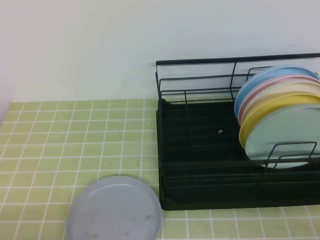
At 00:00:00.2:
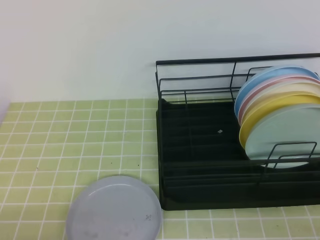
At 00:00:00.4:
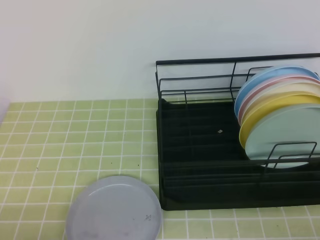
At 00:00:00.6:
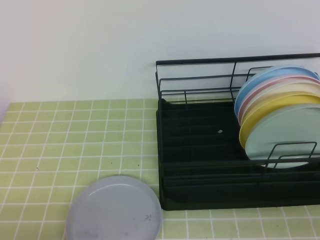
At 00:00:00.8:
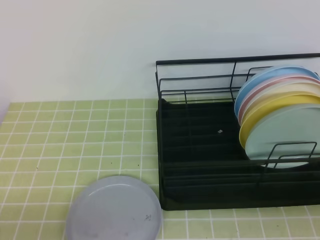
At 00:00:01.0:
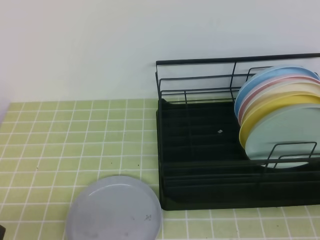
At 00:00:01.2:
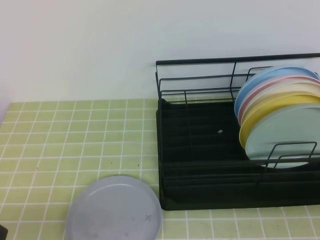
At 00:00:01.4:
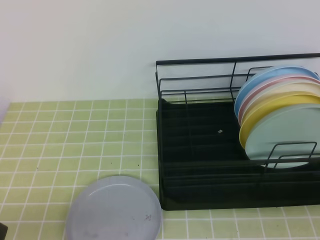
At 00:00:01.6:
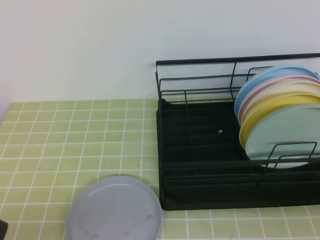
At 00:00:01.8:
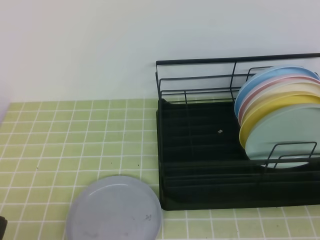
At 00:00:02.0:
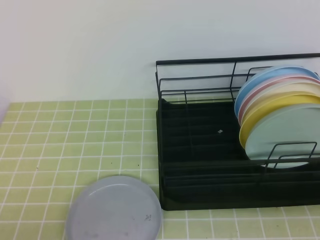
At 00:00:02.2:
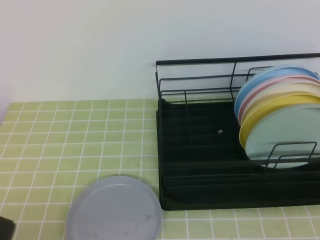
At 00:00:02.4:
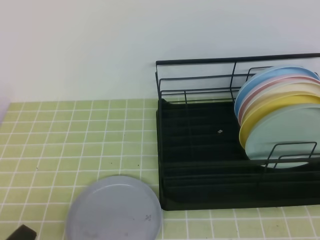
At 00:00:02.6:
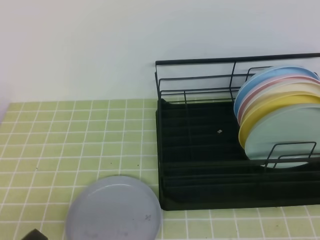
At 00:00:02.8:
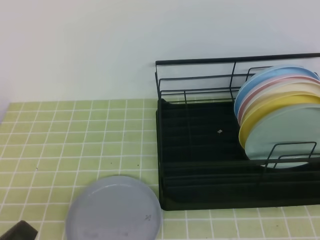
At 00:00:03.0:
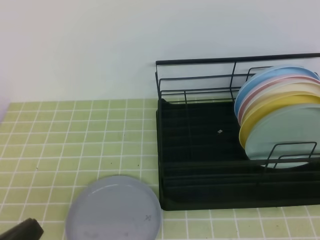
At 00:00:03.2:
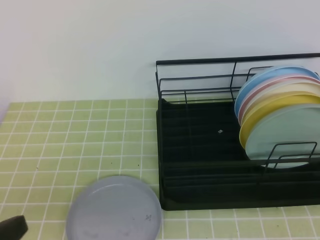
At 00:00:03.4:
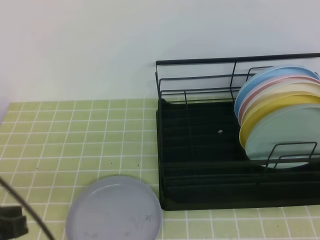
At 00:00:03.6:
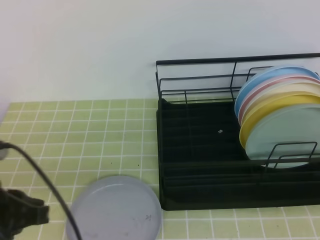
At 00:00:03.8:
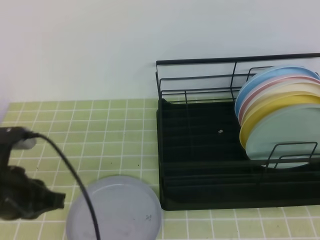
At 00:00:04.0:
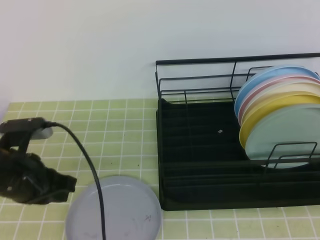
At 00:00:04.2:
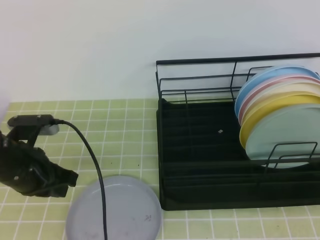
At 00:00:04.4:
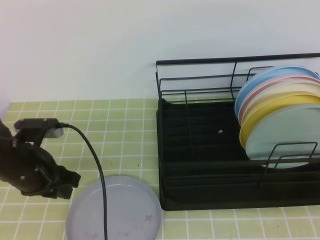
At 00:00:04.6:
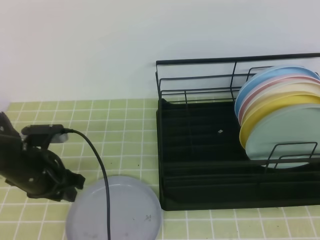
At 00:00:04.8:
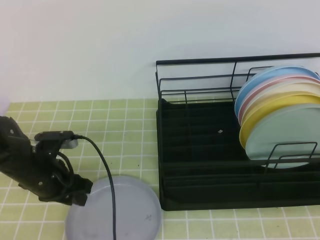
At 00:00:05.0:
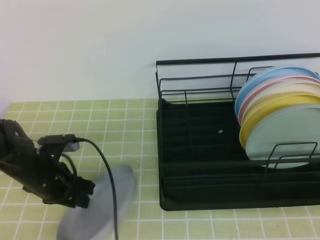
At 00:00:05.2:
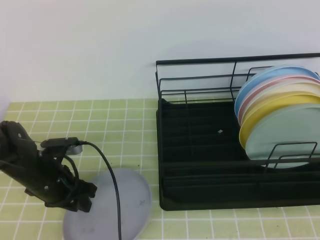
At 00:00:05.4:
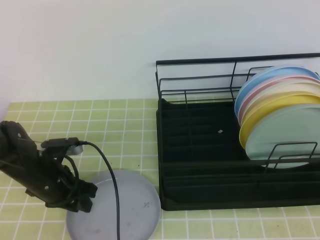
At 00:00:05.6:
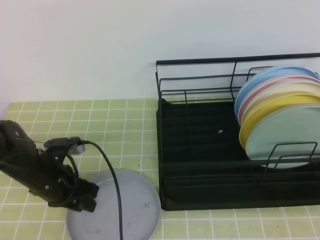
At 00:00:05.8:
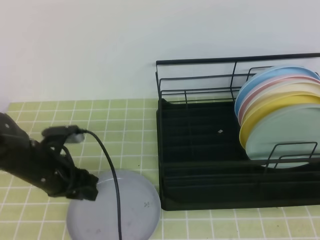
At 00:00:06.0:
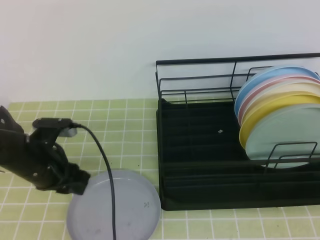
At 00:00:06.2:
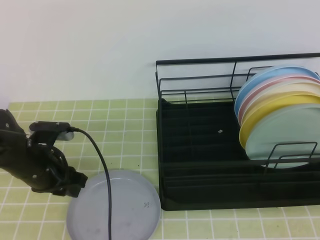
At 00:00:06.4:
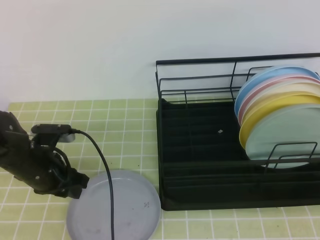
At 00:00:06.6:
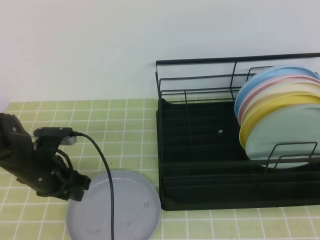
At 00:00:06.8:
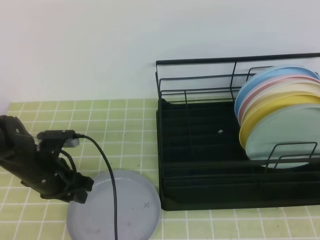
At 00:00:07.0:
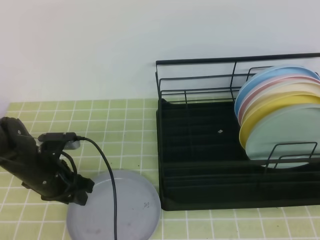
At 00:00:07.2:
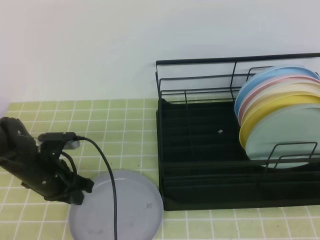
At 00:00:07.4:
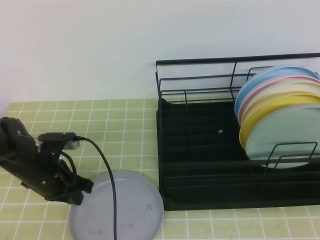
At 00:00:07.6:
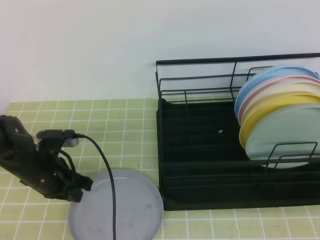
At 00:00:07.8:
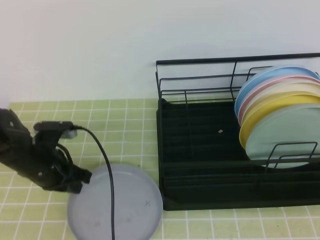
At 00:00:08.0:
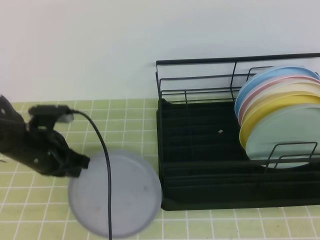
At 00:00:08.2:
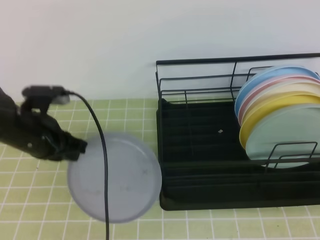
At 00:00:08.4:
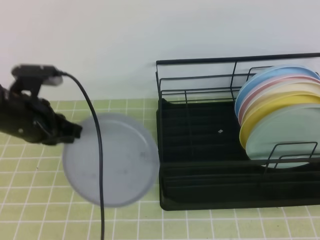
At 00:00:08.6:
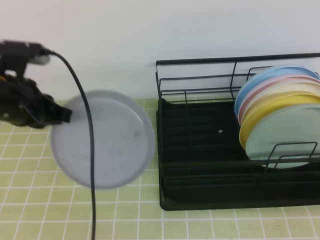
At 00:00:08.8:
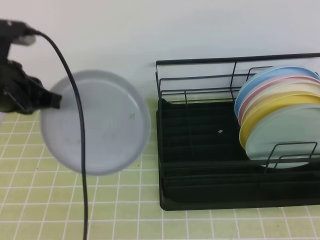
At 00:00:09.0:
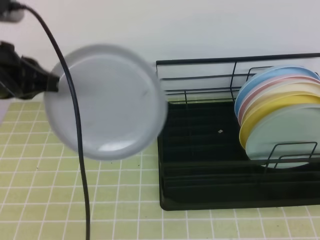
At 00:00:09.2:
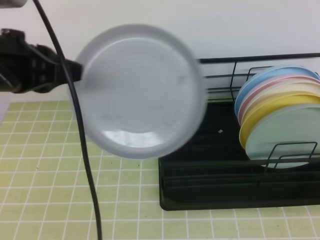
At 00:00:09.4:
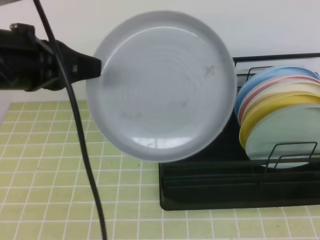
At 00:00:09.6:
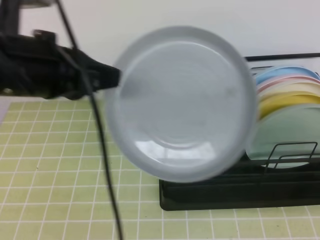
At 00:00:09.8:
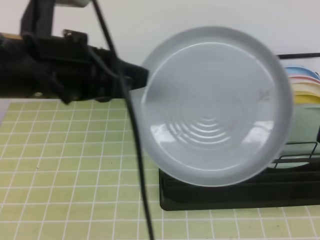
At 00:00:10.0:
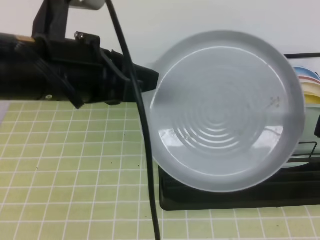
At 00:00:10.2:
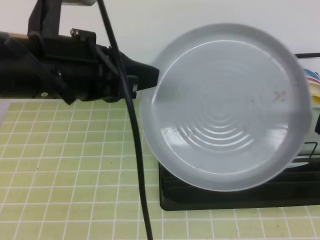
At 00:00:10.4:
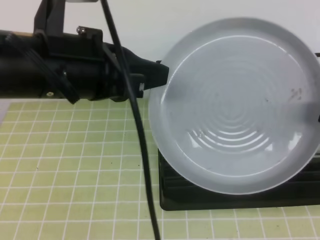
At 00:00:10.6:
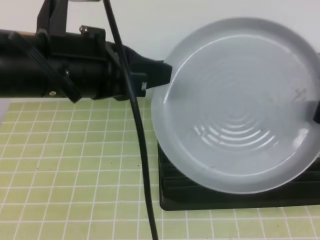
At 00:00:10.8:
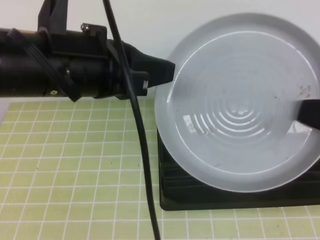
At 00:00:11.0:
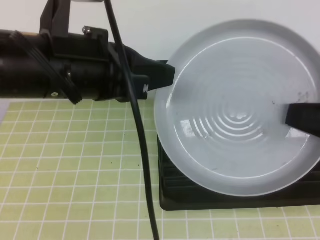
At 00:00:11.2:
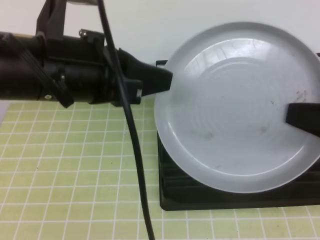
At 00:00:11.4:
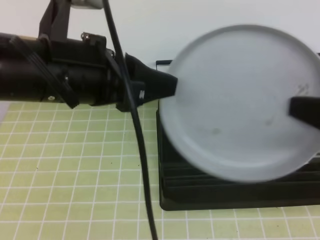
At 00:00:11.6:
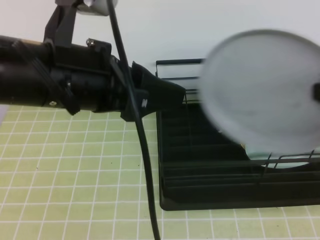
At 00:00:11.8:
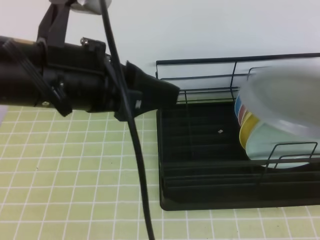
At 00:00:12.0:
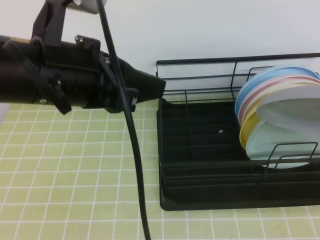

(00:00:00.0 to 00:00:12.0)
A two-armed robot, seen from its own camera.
00:00:01.6 - 00:00:03.0: The left gripper goes some 5 cm upward.
00:00:03.0 - 00:00:04.4: The left gripper is displaced forward by some 25 cm, and opens.
00:00:06.0 - 00:00:07.6: The left gripper closes up.
00:00:07.6 - 00:00:09.0: The left gripper goes about 20 cm upward.
00:00:09.0 - 00:00:10.4: The right gripper opens its fingers. Meanwhile the left gripper heads to the right, covering about 10 cm.
00:00:10.4 - 00:00:12.0: The left gripper opens up. Meanwhile the right gripper travels forward by about 5 cm, and closes up.

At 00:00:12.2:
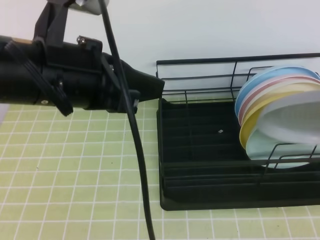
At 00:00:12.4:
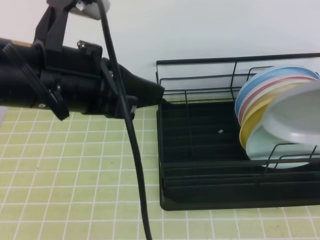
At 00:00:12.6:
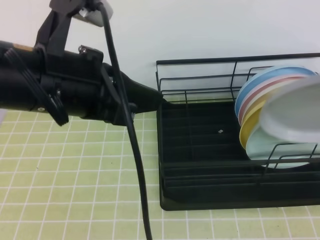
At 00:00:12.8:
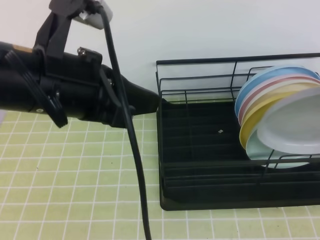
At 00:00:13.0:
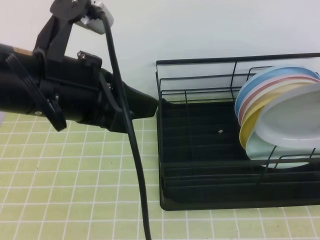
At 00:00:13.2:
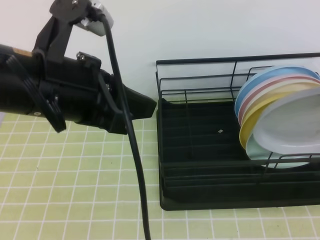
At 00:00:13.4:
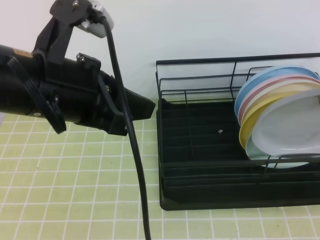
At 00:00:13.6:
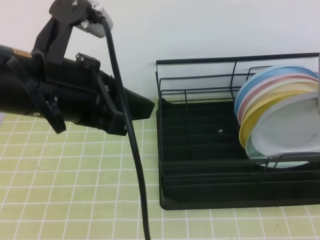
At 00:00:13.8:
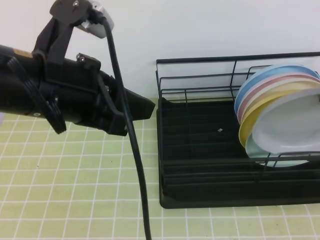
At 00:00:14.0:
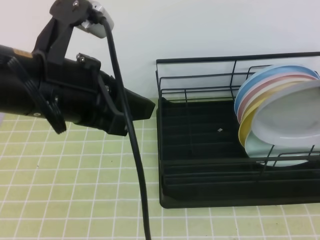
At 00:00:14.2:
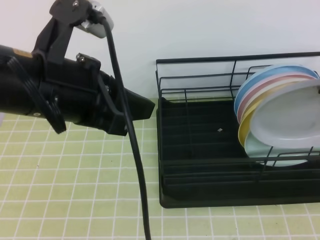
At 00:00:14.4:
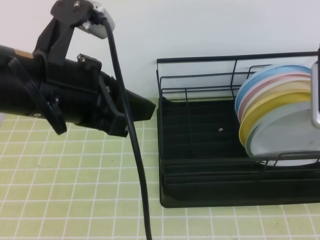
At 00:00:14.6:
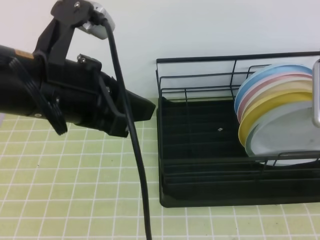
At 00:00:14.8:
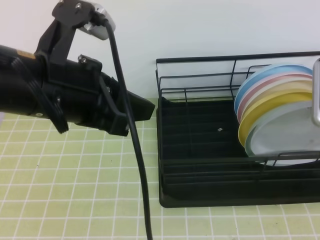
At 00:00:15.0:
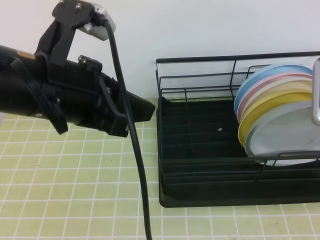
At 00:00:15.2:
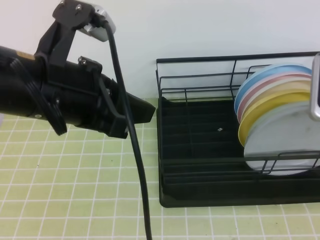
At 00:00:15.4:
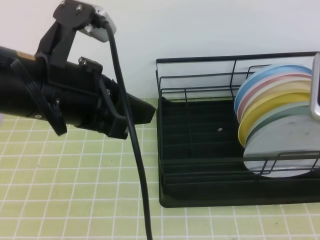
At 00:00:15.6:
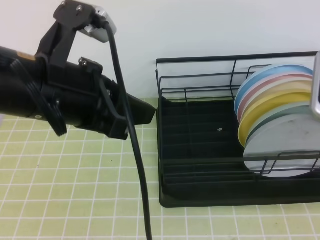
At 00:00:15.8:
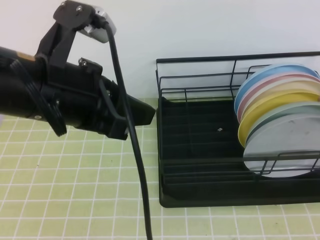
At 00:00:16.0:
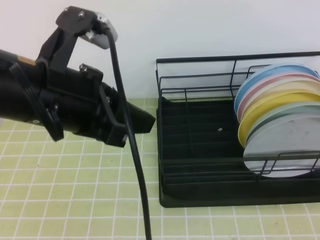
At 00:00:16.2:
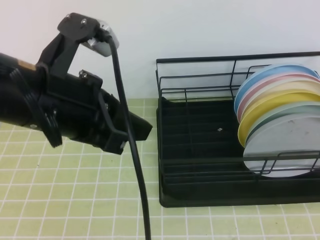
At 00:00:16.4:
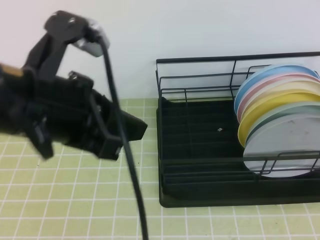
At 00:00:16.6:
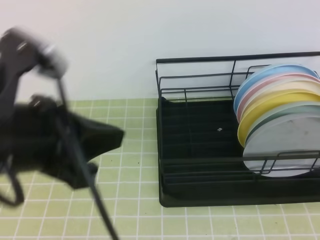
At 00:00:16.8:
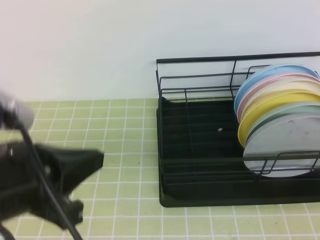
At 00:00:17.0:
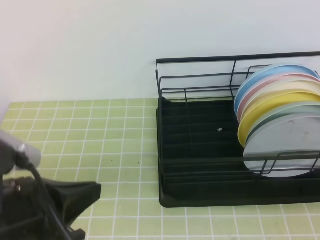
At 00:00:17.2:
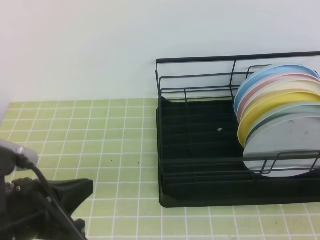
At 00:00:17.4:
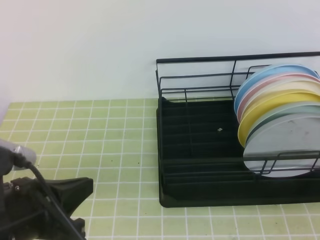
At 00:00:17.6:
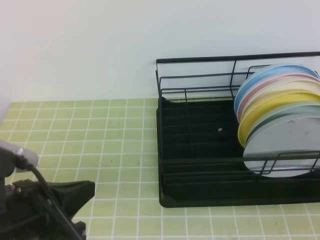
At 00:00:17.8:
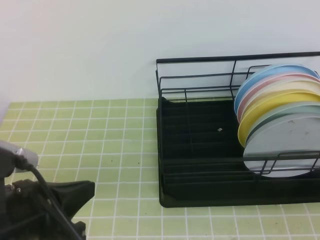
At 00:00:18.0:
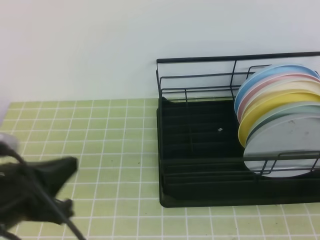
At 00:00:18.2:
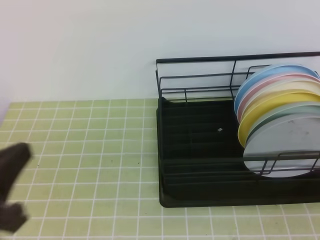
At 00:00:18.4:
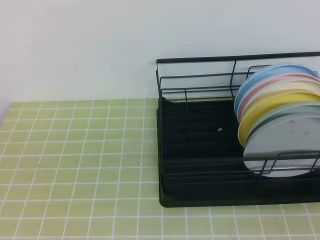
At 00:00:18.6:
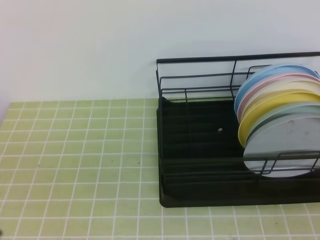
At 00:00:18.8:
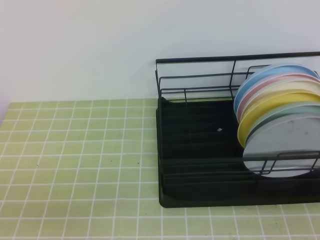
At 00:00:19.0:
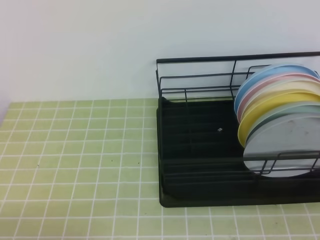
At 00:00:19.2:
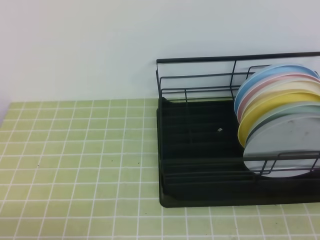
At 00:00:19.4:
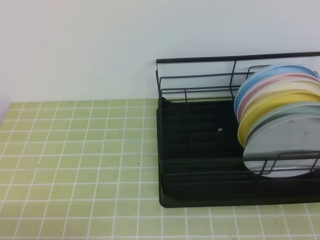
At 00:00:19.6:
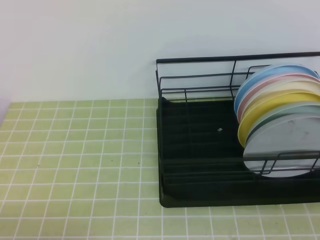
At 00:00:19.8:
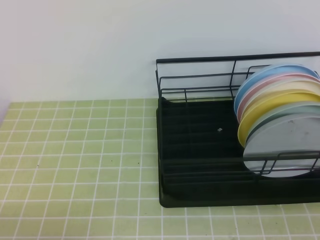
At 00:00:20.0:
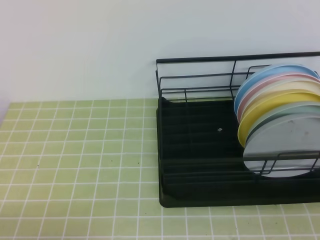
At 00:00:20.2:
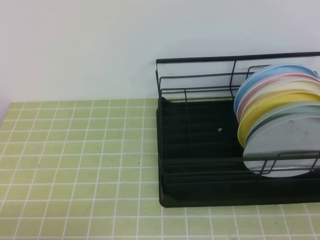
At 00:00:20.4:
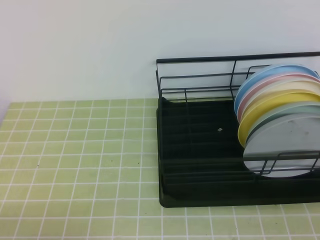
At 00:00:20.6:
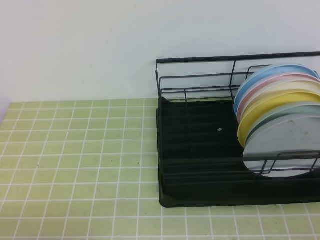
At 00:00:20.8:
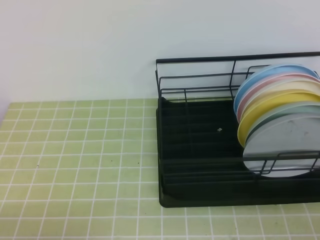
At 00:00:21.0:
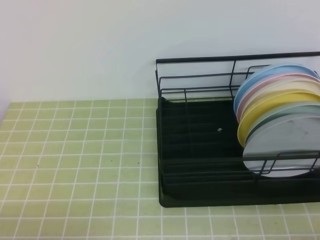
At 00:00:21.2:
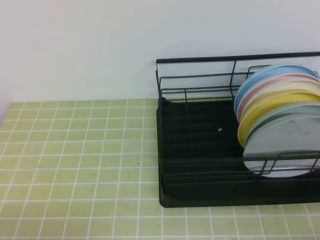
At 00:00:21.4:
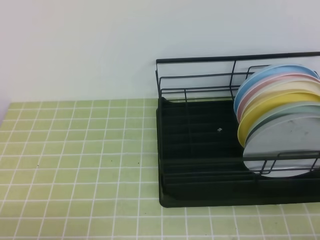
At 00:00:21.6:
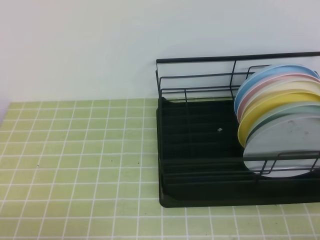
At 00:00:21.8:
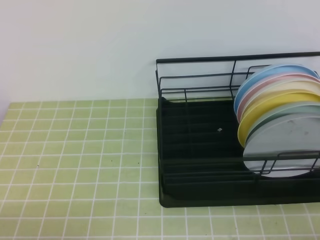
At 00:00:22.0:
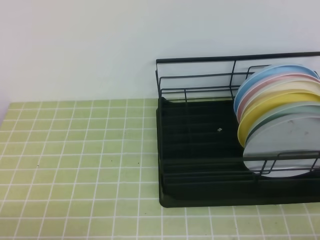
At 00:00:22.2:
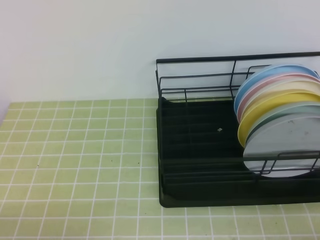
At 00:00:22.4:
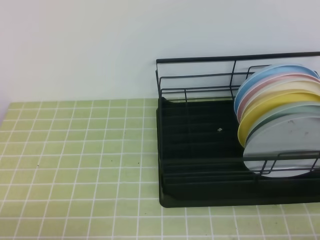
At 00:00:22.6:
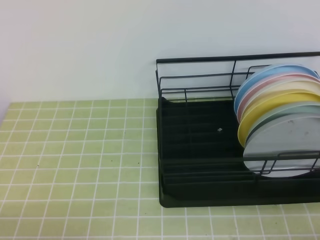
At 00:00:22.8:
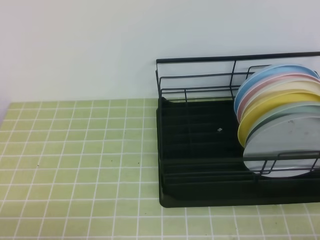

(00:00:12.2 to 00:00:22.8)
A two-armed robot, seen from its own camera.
00:00:12.2 - 00:00:13.8: The right gripper heads forward, covering roughly 10 cm.
00:00:13.8 - 00:00:15.2: The right gripper opens.
00:00:15.2 - 00:00:16.8: The right gripper shifts roughly 25 cm backward, and closes its fingers. Meanwhile the left gripper shifts approximately 10 cm backward and downward.
00:00:16.8 - 00:00:18.2: The left gripper goes approximately 5 cm to the left. Meanwhile the right gripper heads downward, covering roughly 10 cm.
00:00:18.2 - 00:00:19.8: The left gripper moves downward and backward, about 15 cm.
00:00:21.2 - 00:00:22.8: Both grippers stay about where they are.
